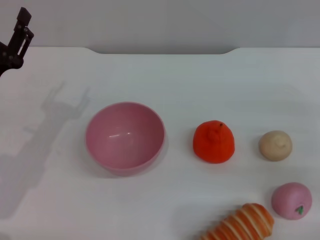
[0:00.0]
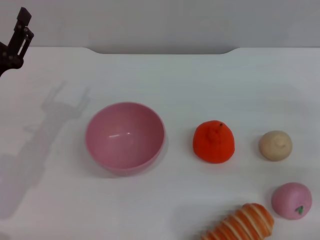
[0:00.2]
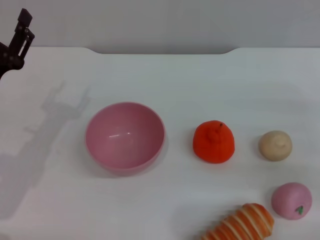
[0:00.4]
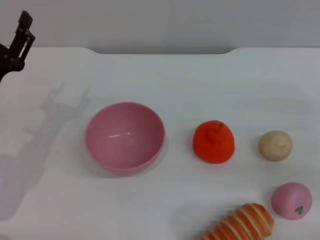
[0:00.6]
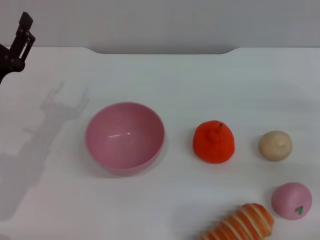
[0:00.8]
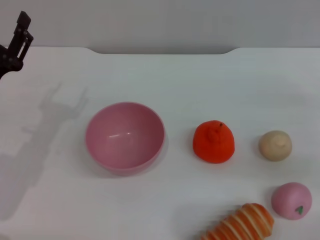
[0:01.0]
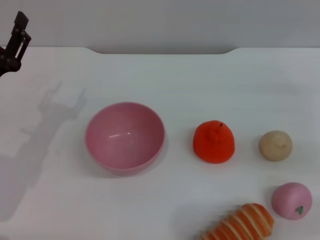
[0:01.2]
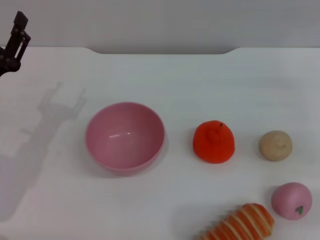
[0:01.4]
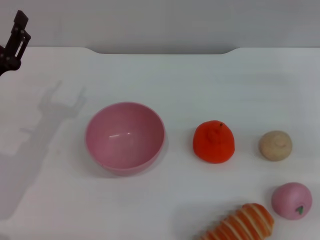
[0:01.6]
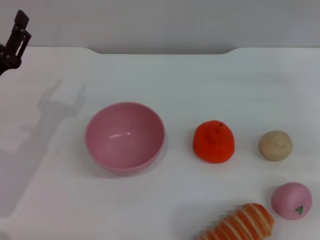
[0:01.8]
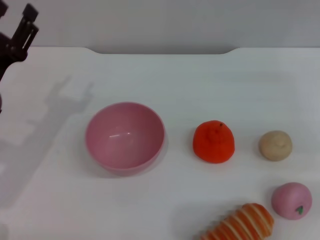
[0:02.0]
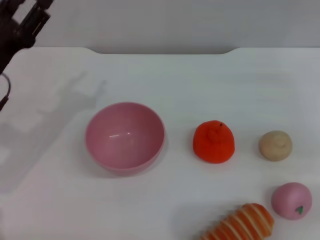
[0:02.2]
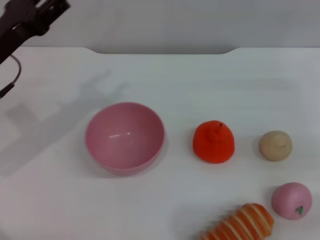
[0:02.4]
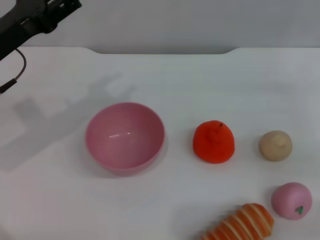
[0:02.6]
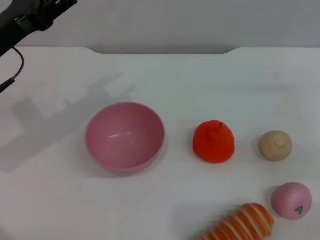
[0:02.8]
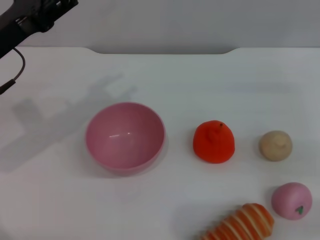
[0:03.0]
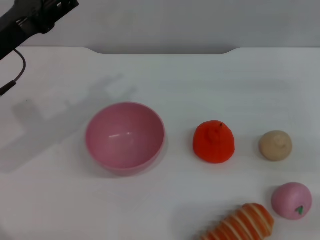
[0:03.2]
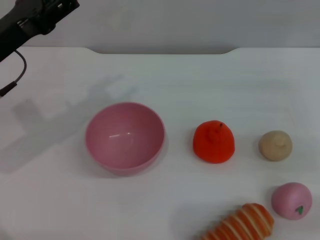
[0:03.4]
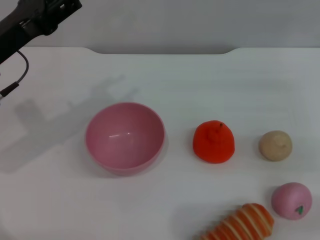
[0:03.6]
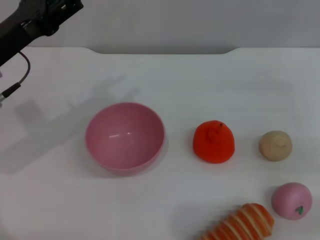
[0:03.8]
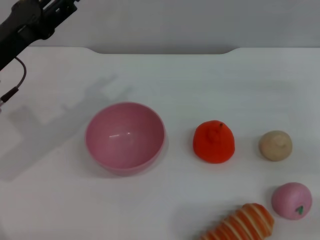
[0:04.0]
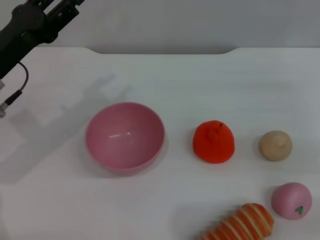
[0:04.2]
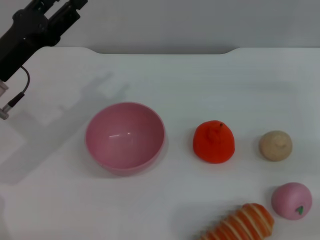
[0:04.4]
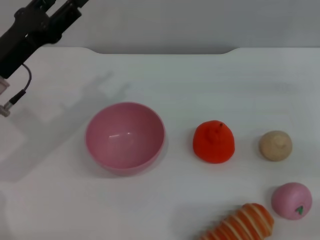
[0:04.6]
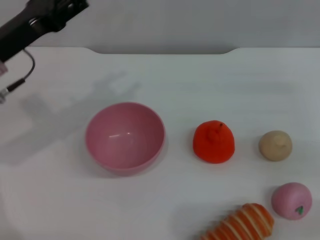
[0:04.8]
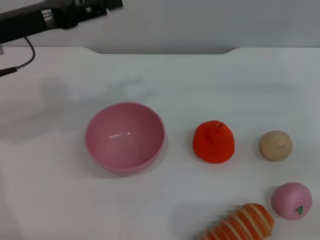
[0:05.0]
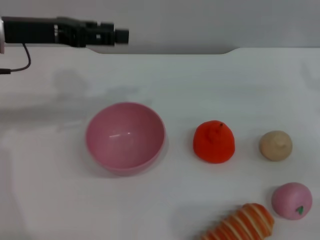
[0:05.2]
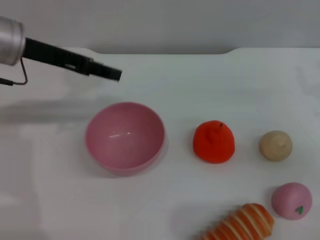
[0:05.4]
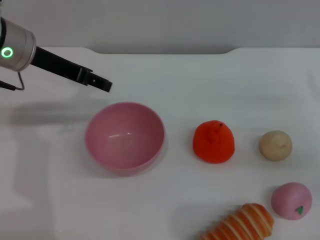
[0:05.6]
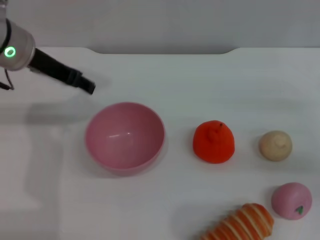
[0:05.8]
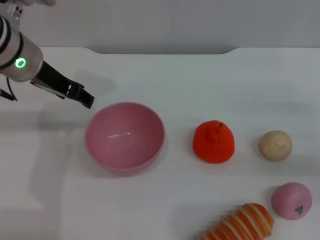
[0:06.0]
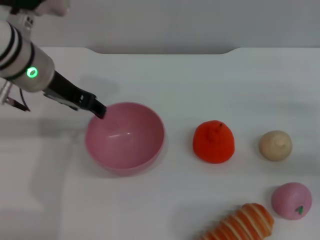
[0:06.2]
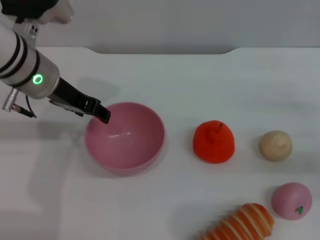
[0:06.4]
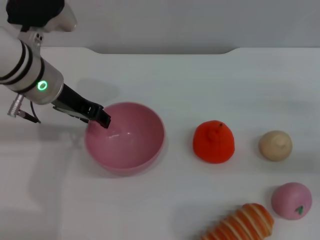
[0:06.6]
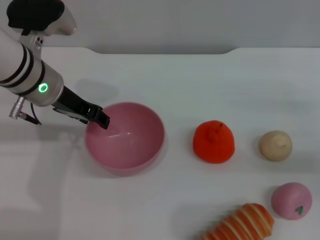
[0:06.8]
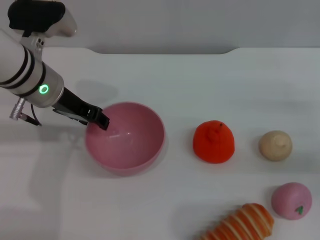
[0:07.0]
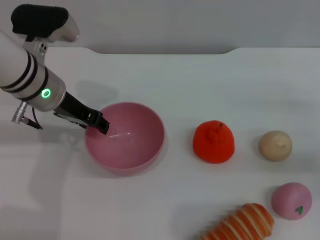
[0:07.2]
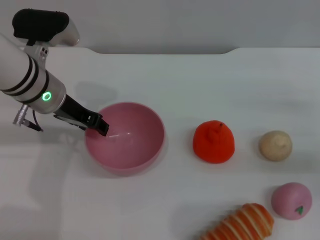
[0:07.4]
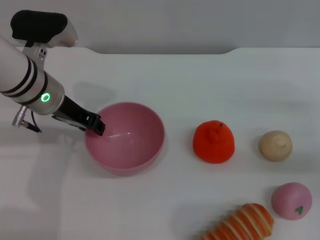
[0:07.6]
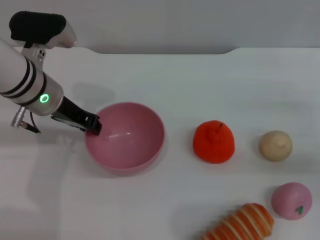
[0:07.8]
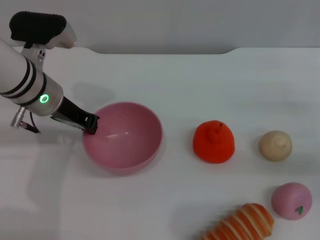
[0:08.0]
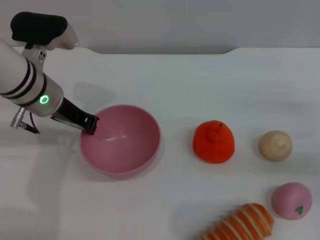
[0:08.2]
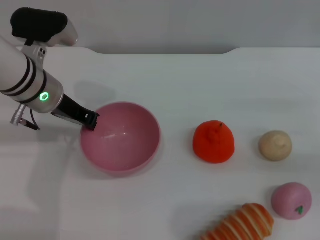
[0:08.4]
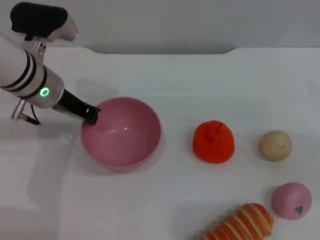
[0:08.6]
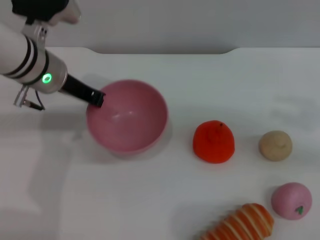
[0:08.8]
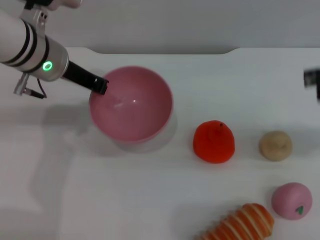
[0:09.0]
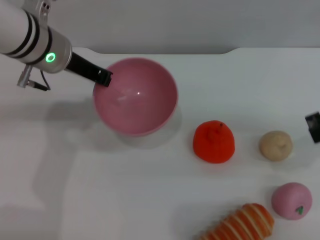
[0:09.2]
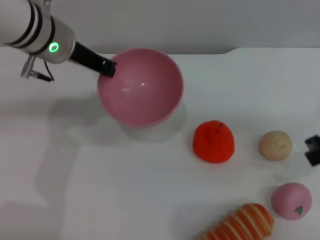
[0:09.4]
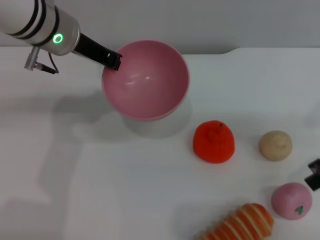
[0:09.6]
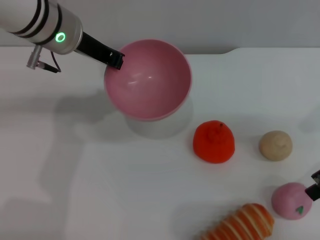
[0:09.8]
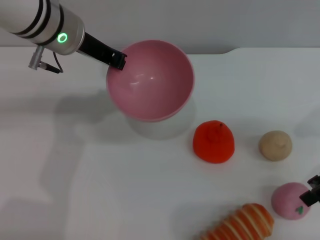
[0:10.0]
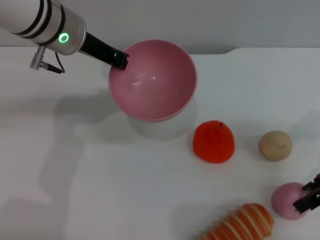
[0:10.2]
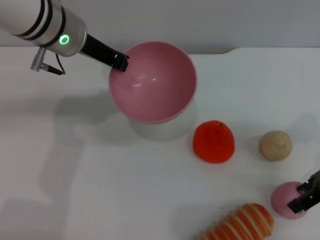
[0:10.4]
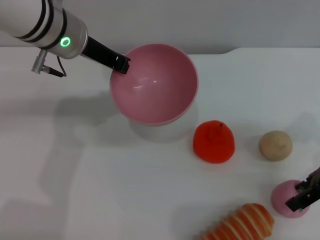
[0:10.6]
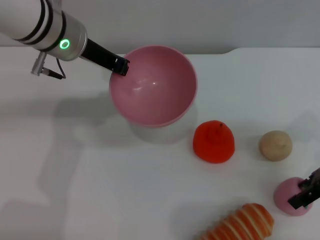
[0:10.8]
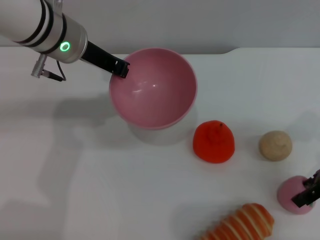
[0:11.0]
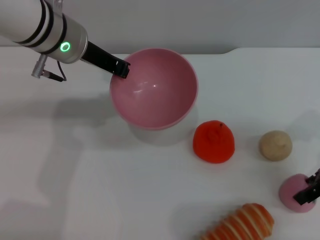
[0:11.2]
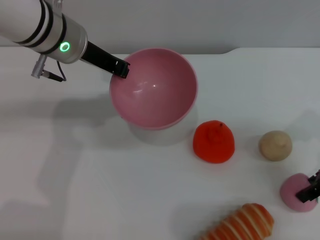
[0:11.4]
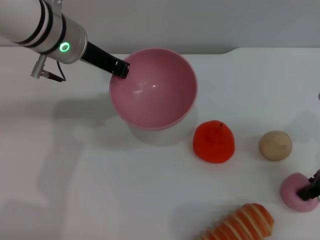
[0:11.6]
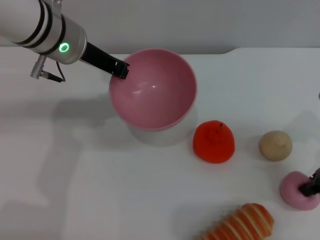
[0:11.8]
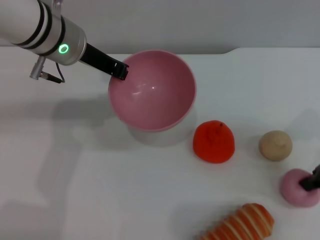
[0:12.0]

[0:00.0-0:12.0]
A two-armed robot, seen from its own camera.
Task of the whole recording: put the peach into the pink bowl and pour it out repeatedly.
Step, 0:00.0 to 0:09.0: Pick up the bowl with the left gripper.
0:01.6 to 0:03.0: The left gripper moves upward, roughly 10 cm.
0:03.0 to 0:04.4: The grippers stay close to where they were, moving slightly.
0:04.4 to 0:06.0: The left gripper travels upward, to the right and forward by about 10 cm.
0:06.0 to 0:07.6: The left gripper shifts about 5 cm downward.
0:07.6 to 0:09.0: The left gripper closes, while the right gripper goes approximately 15 cm upward.
0:09.0 to 0:10.4: The right gripper travels downward and to the left by roughly 10 cm.
0:10.4 to 0:12.0: The right gripper closes up.

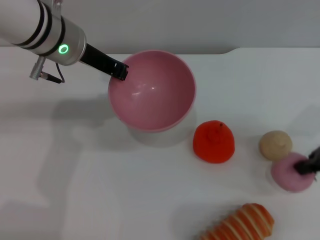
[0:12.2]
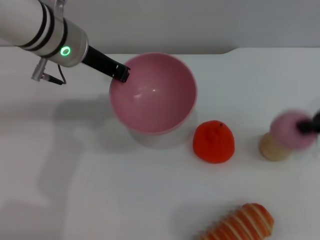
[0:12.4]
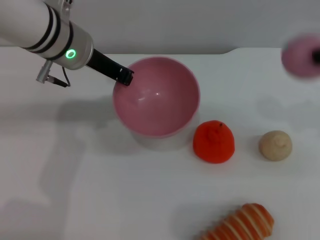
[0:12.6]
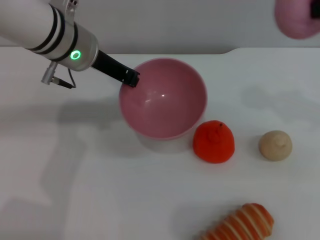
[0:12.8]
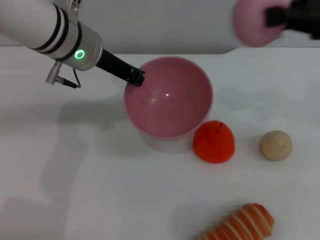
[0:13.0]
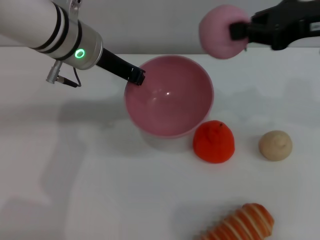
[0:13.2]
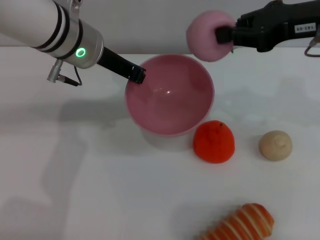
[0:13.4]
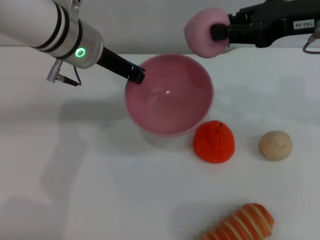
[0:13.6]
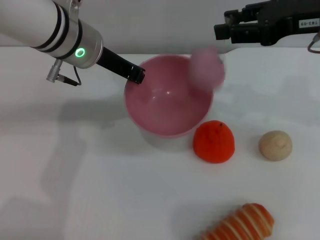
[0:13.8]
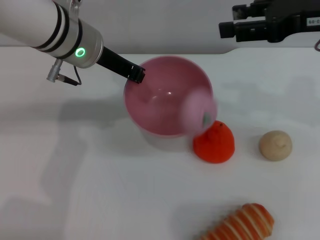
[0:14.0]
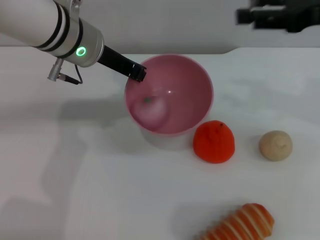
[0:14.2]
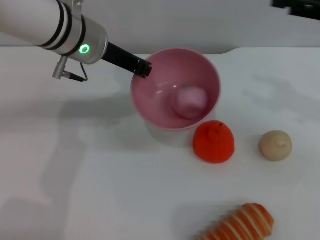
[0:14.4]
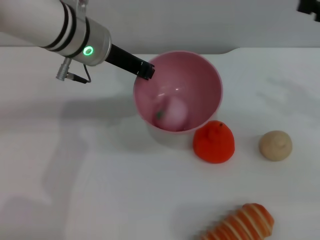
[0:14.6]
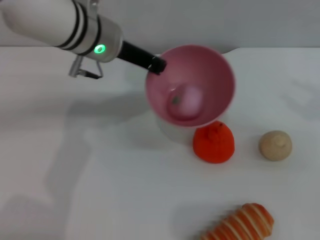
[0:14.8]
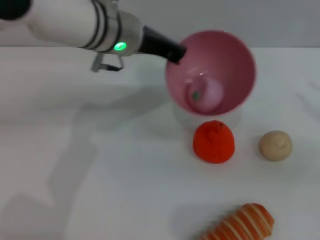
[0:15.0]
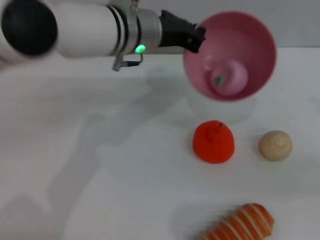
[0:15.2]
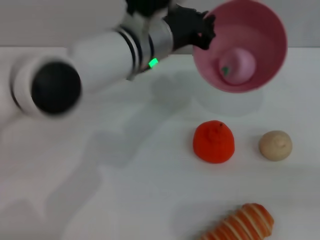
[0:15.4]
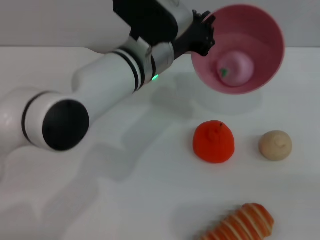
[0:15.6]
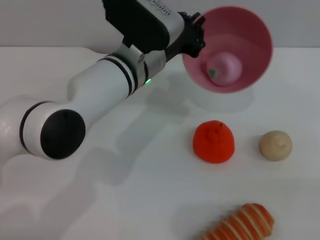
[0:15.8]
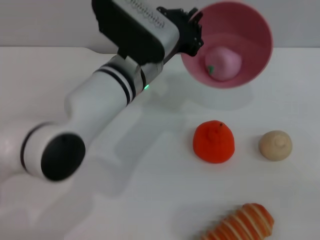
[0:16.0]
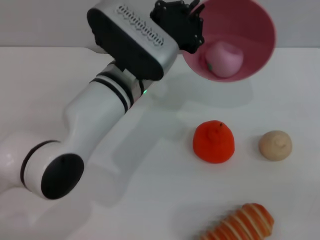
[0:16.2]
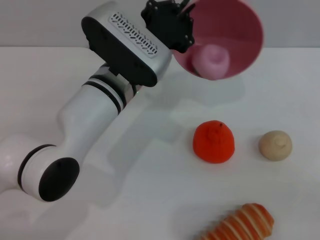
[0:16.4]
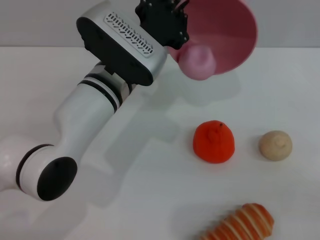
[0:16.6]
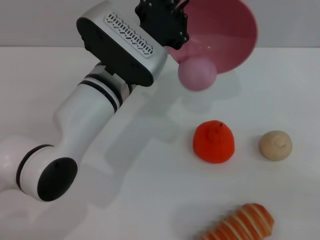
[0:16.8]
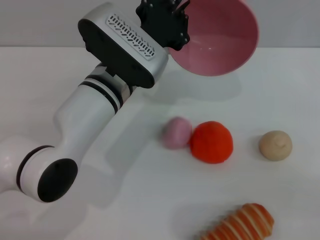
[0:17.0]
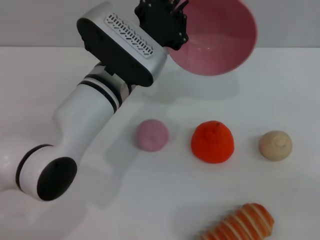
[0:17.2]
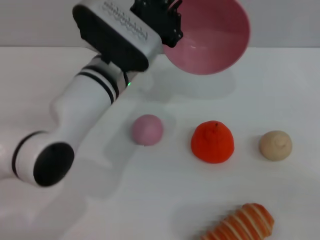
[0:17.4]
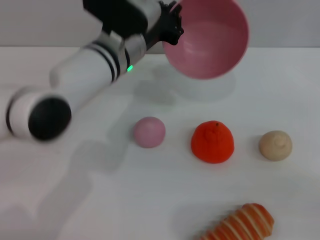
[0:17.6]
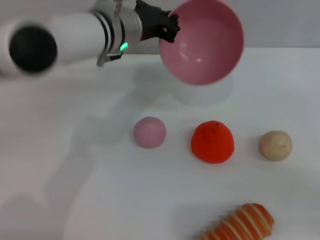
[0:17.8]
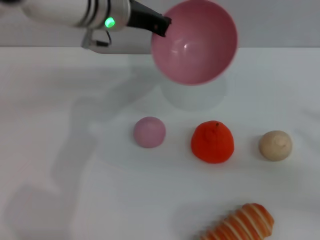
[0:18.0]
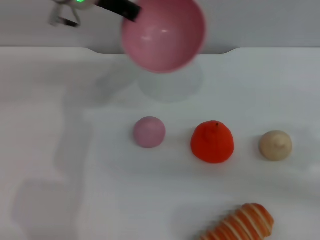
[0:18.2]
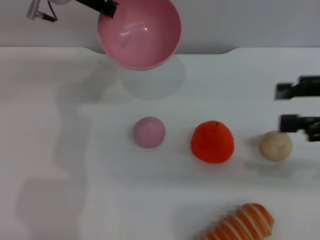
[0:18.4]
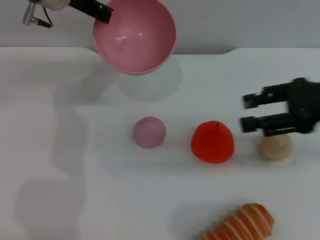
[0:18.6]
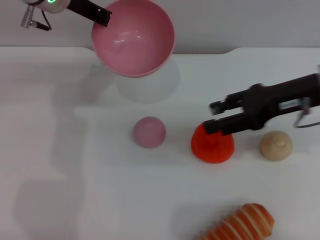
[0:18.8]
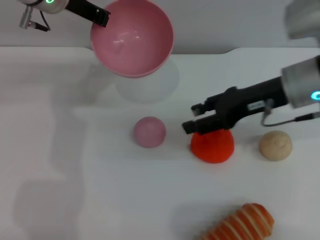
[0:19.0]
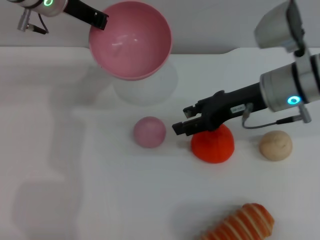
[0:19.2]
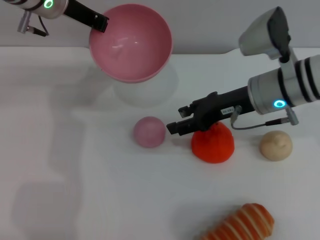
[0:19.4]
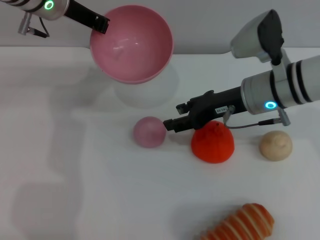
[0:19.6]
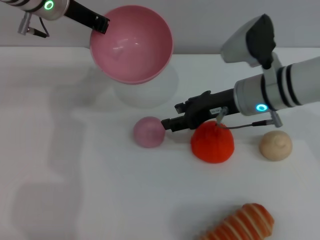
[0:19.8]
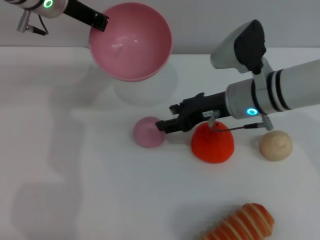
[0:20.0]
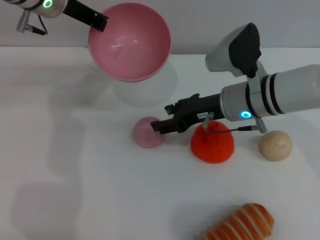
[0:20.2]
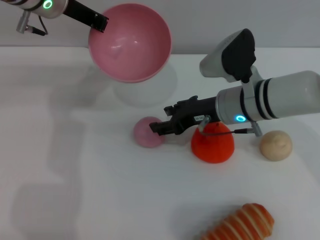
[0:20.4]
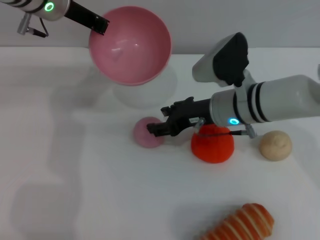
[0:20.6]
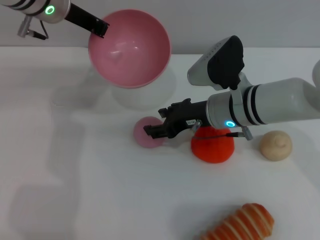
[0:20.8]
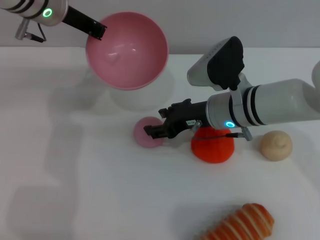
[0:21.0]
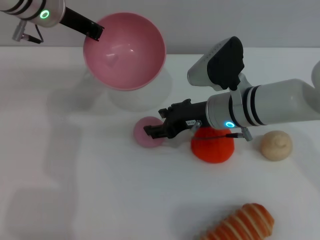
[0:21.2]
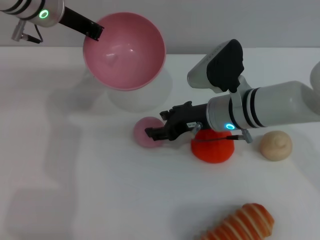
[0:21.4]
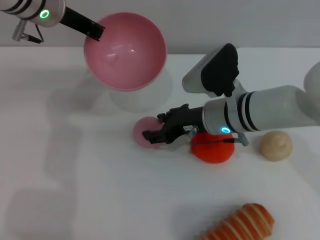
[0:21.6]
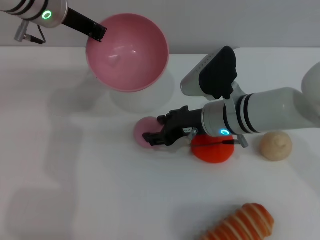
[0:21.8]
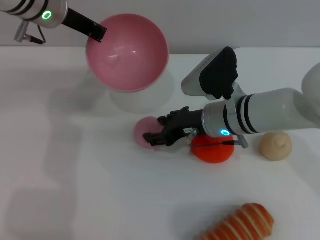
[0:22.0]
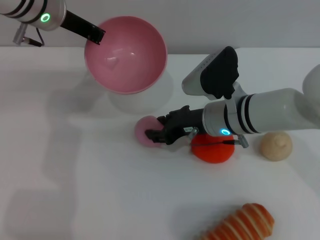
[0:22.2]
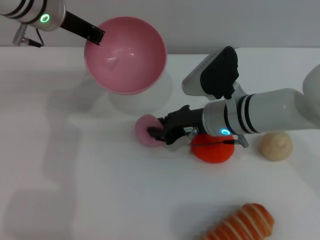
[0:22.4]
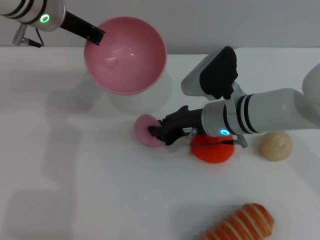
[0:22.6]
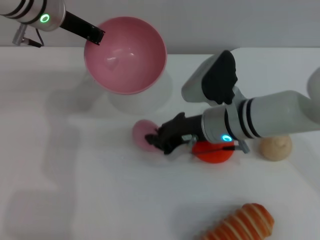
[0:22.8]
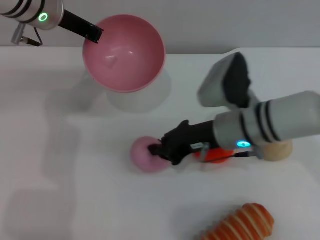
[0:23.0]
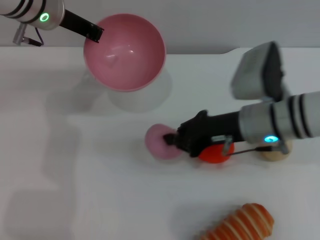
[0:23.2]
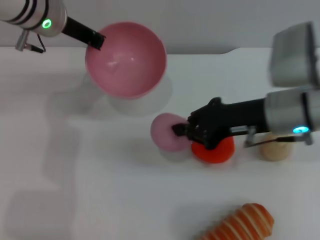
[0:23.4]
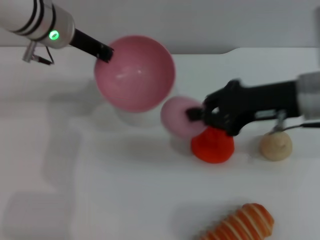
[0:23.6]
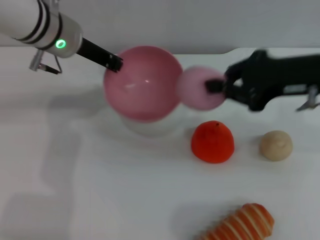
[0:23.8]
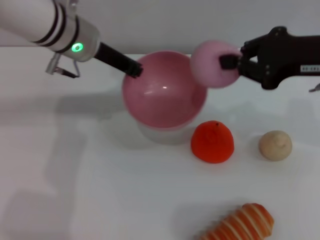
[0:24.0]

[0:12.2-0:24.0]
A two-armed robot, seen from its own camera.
Task of the whole recording: put the peach into the pink bowl and pour it out repeatedly.
Step, 0:12.4 to 0:14.0: Place the peach into the bowl.
Step, 0:14.4 to 0:17.2: Pour the peach out of bowl.
Step, 0:17.4 to 0:23.6: Pick up the peach with the right gripper.
0:12.2 to 0:13.6: The right gripper shifts approximately 10 cm upward and to the left.
0:13.6 to 0:15.2: The right gripper moves to the right, backward and downward, about 20 cm, and opens, while the left gripper travels to the right by some 5 cm.
0:15.2 to 0:16.6: The left gripper is displaced downward and backward by about 10 cm, while the right gripper is displaced backward by approximately 5 cm.
0:16.6 to 0:18.2: The right gripper is displaced to the left and forward by roughly 10 cm. Meanwhile the left gripper travels upward, forward and to the left by about 15 cm.
0:18.2 to 0:19.6: The right gripper goes approximately 25 cm to the left, forward and downward.
0:19.6 to 0:21.0: The right gripper shifts by about 5 cm.
0:21.0 to 0:22.6: The grippers move only a little.
0:22.6 to 0:24.0: The right gripper shifts approximately 20 cm upward and to the right, and closes up, while the left gripper moves some 5 cm.
